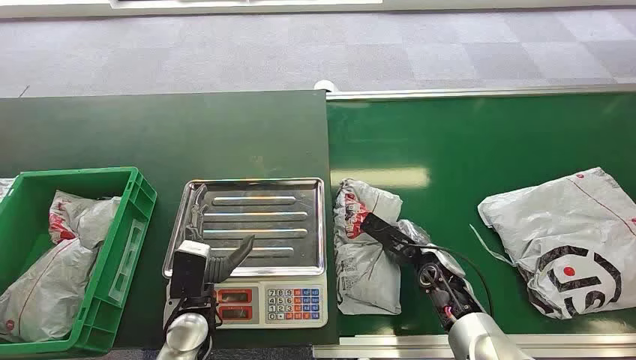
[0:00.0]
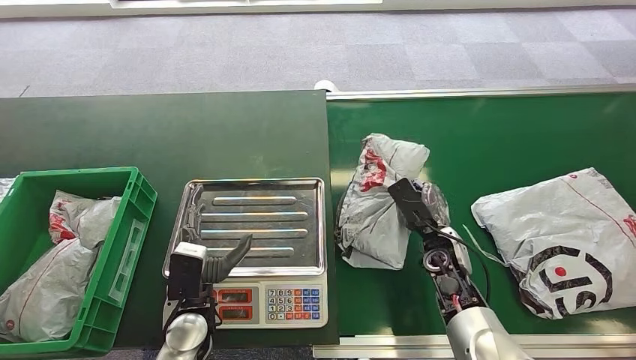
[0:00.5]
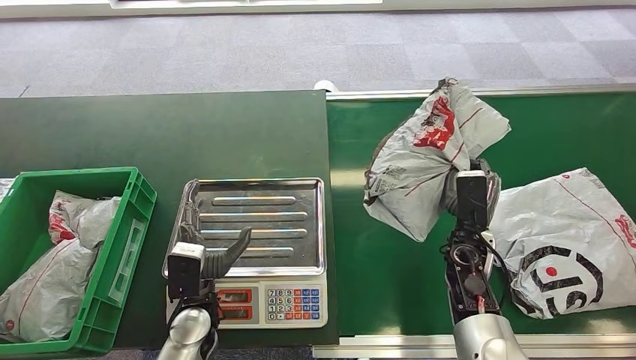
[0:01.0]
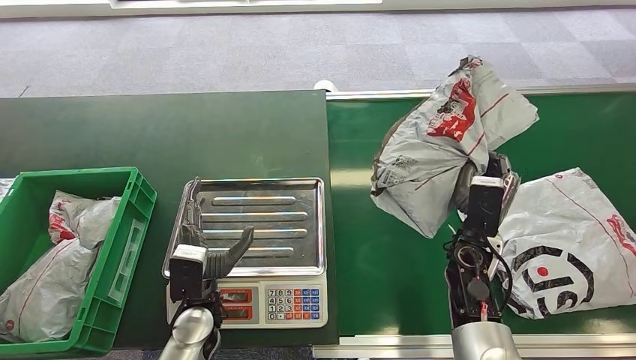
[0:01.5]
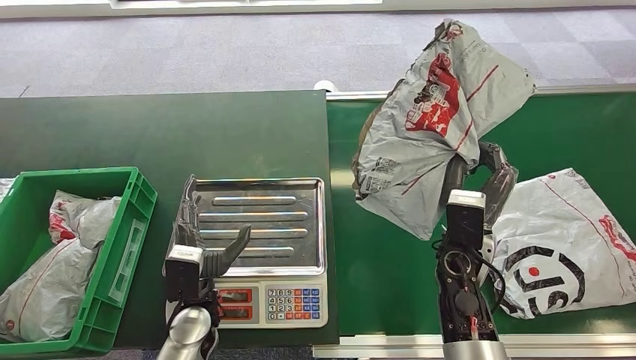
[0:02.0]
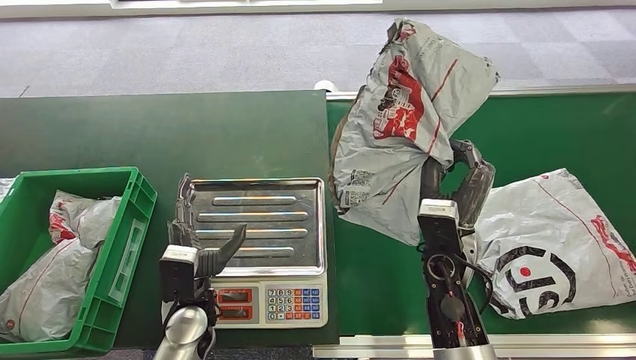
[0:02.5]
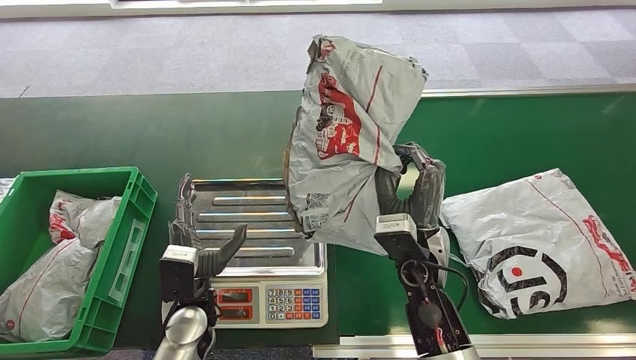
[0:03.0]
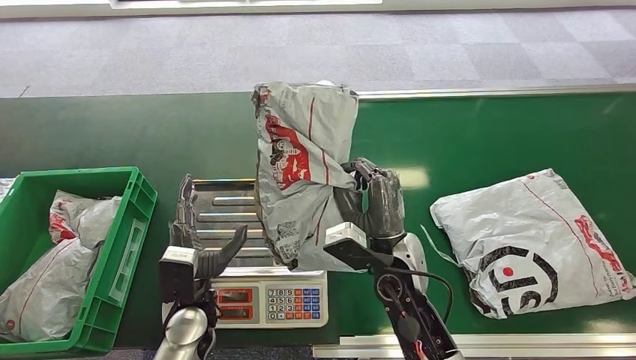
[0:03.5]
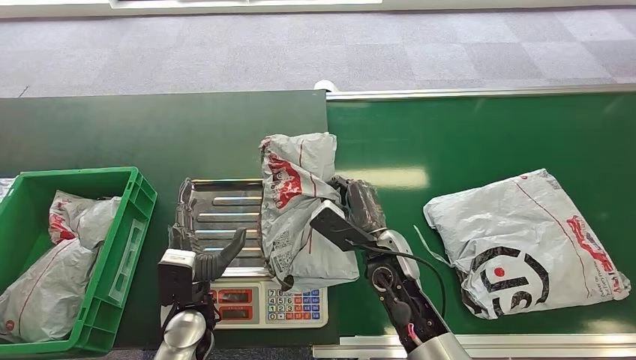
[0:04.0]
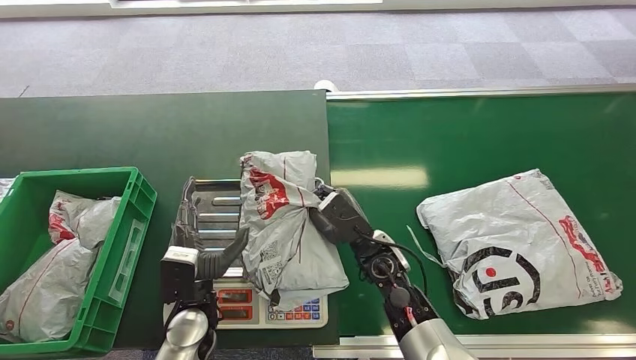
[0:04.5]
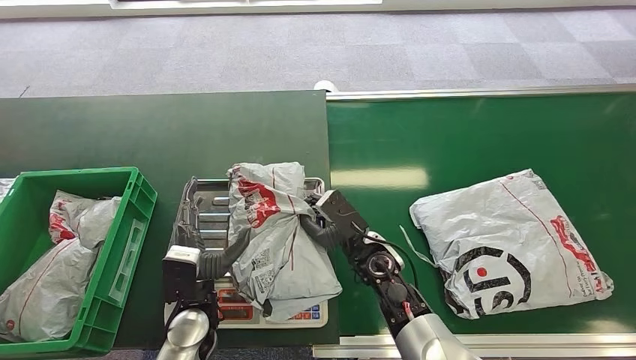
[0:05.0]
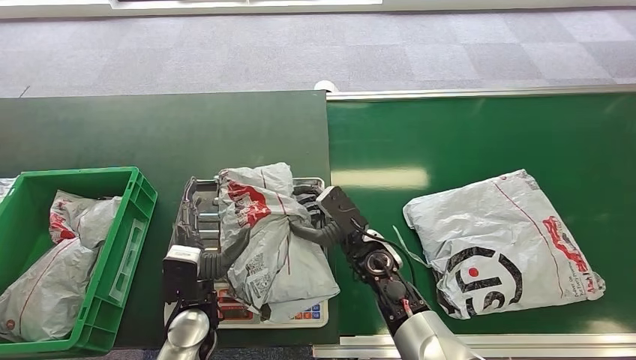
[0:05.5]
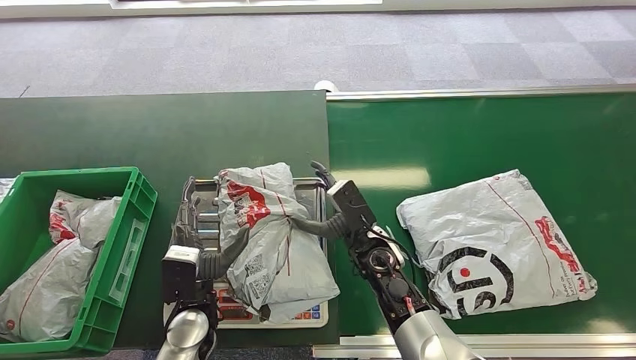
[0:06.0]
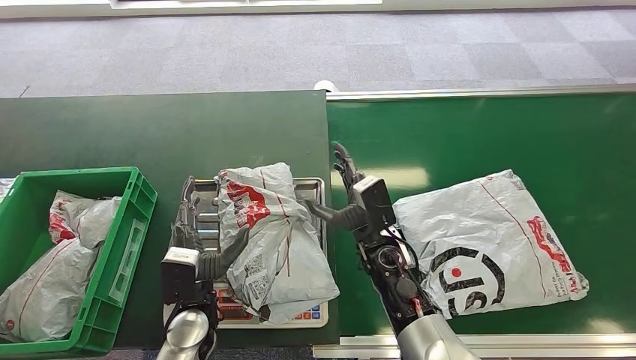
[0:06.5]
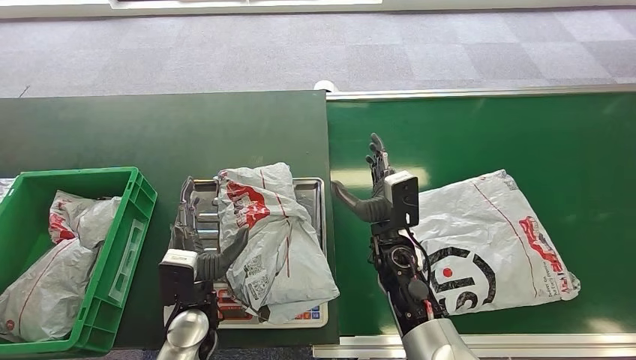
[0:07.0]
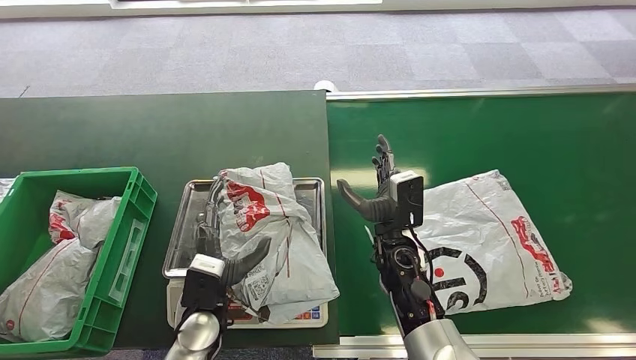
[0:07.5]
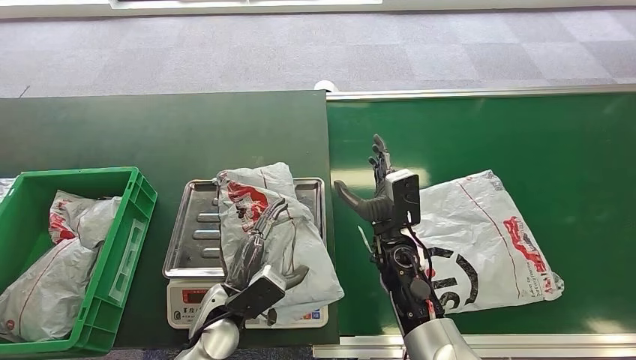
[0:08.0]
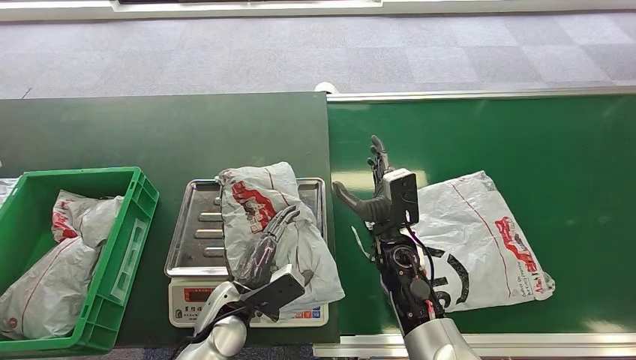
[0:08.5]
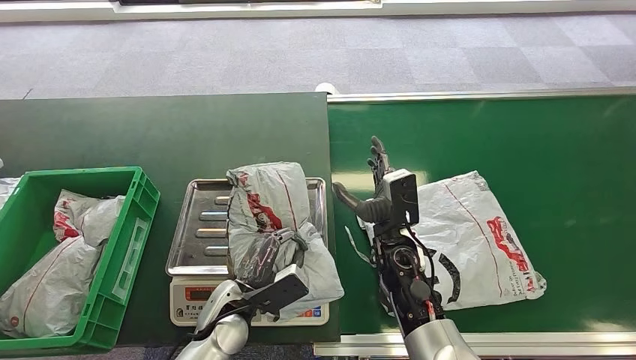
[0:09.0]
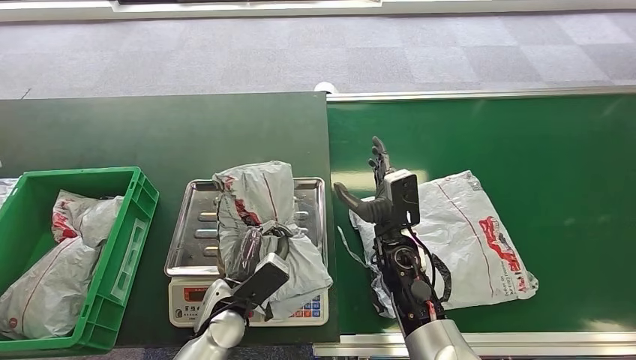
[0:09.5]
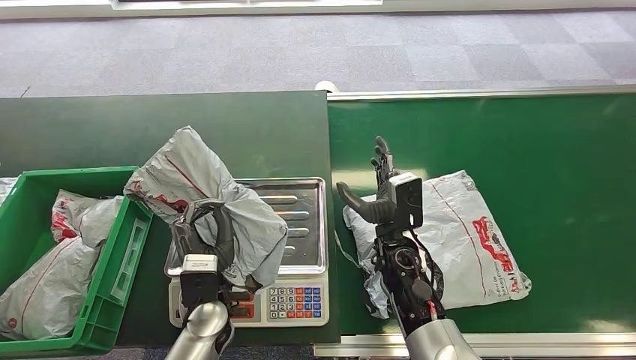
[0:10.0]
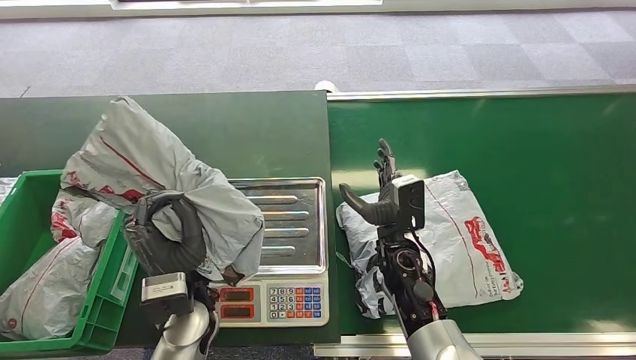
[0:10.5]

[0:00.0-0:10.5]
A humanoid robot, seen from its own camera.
Step, 0:00.0 to 0:01.5: Pick up the package from the conveyor belt.
Step, 0:04.0 to 0:05.5: Place the package onto the inbound machine.

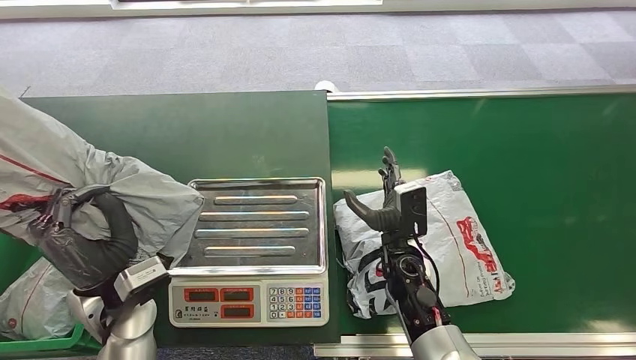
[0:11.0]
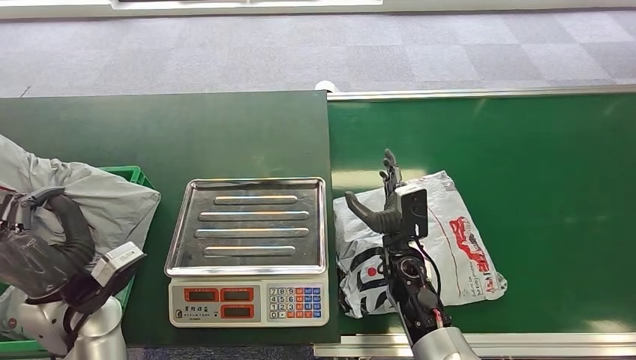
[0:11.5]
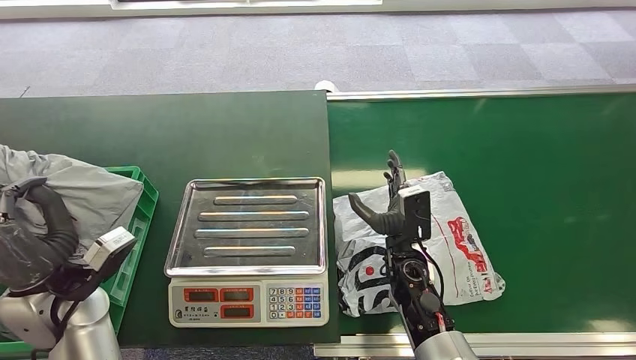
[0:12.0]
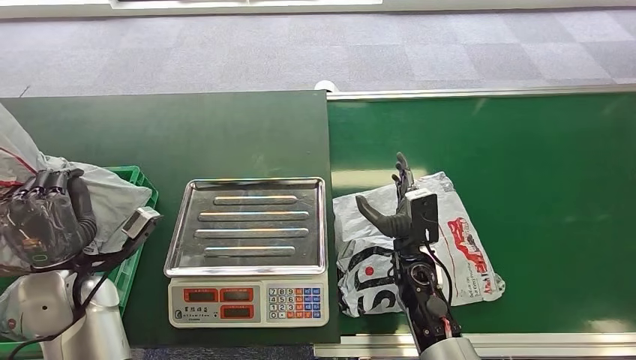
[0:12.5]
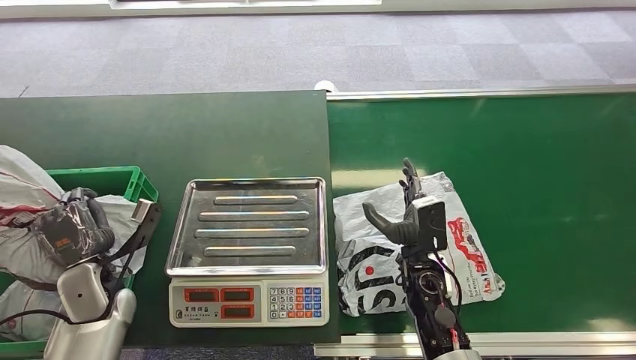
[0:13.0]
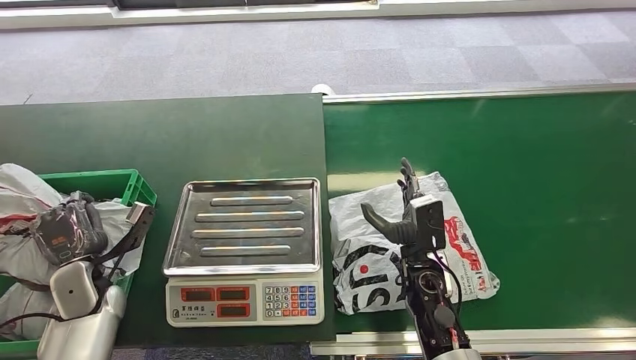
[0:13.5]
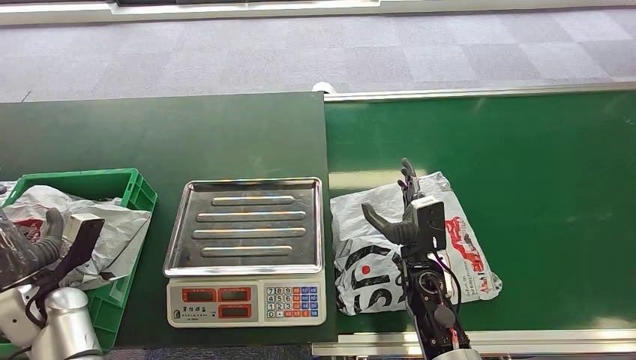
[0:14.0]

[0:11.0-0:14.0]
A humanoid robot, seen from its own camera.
Step, 0:12.5 to 0:14.0: Place the package into the parcel locker.
0:11.0 to 0:12.5: The left hand moves to the left, approximately 10 cm.
